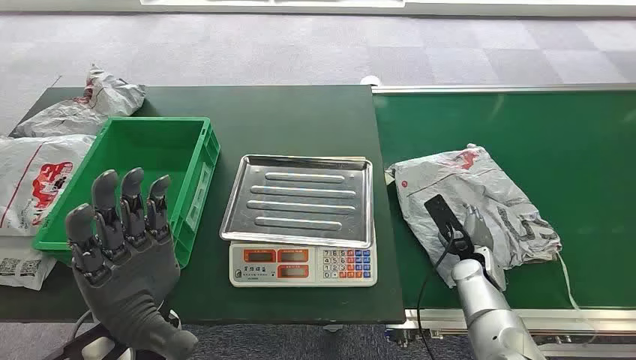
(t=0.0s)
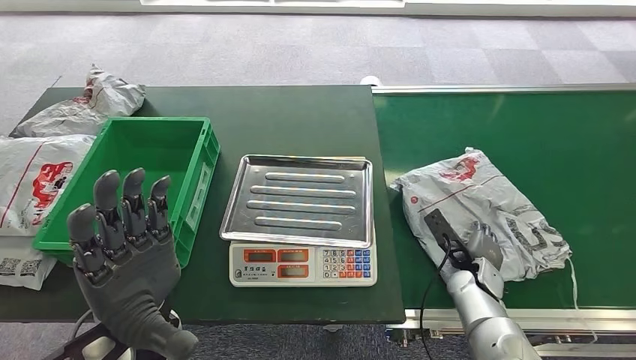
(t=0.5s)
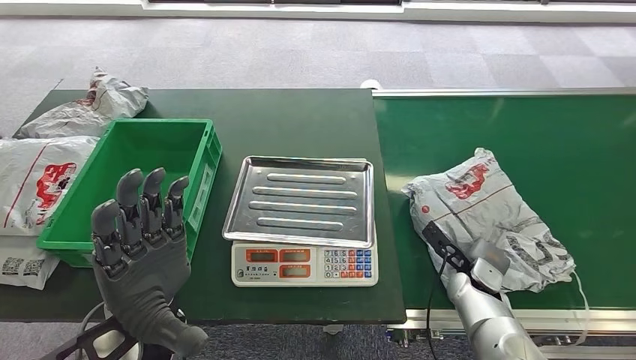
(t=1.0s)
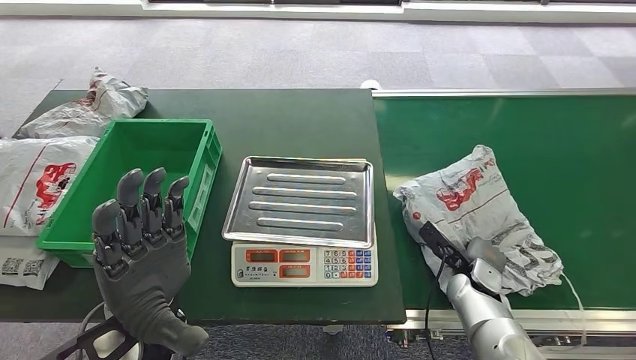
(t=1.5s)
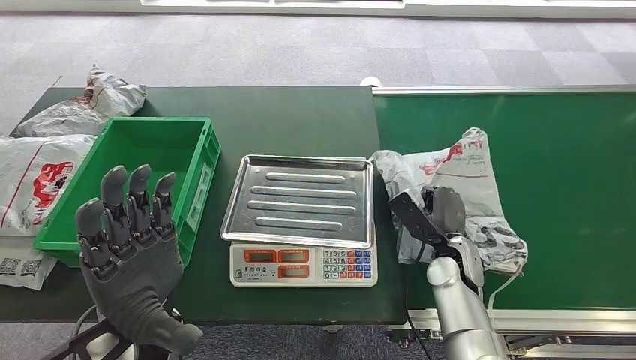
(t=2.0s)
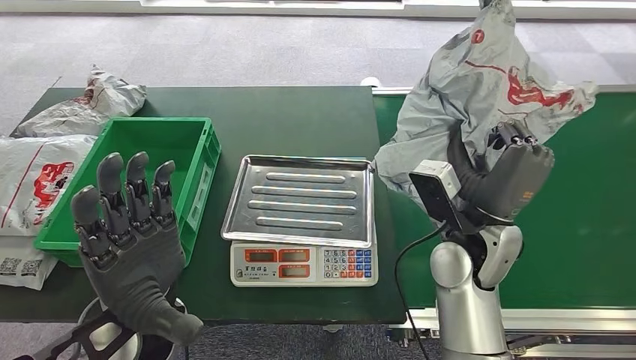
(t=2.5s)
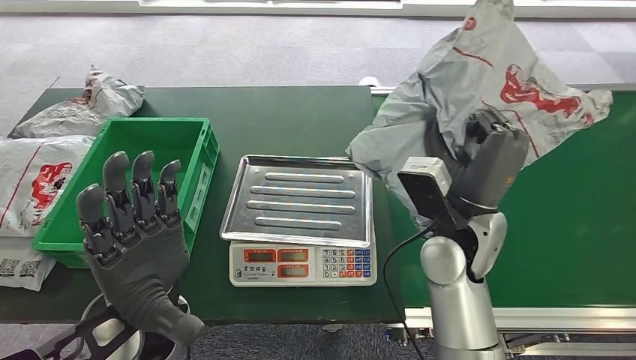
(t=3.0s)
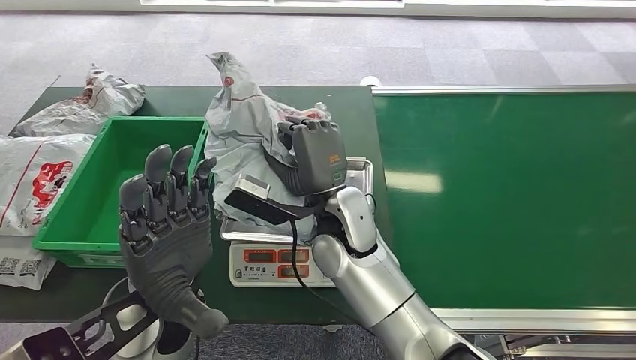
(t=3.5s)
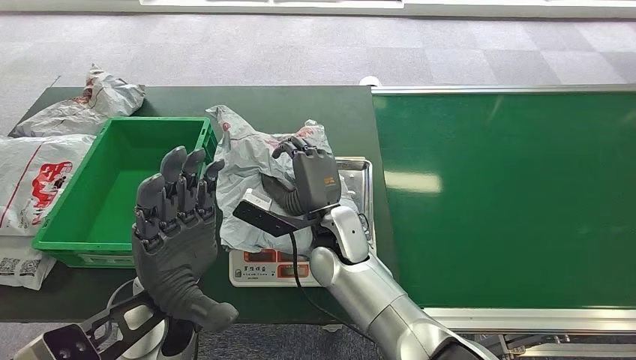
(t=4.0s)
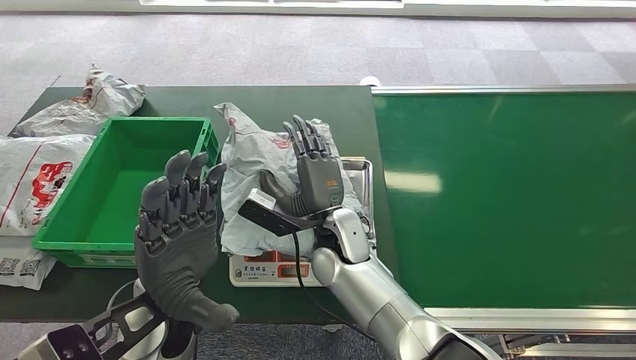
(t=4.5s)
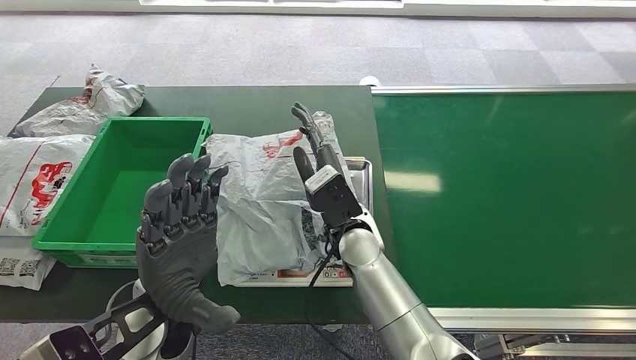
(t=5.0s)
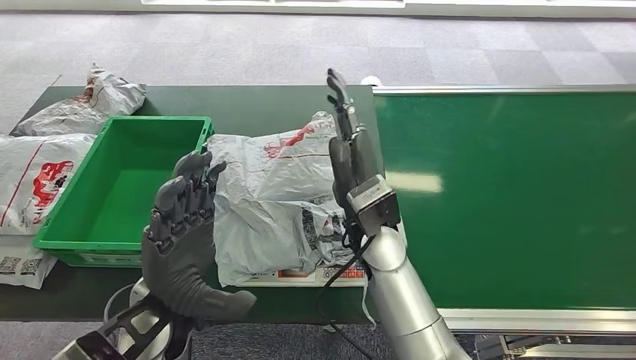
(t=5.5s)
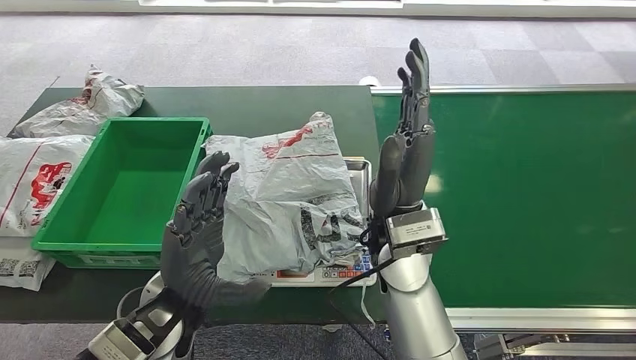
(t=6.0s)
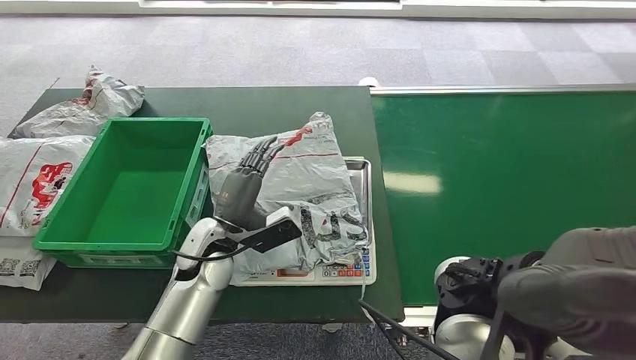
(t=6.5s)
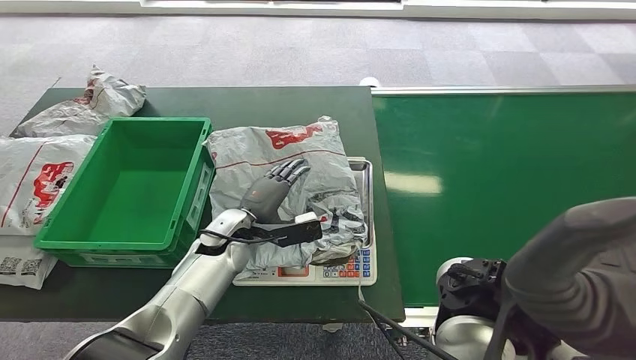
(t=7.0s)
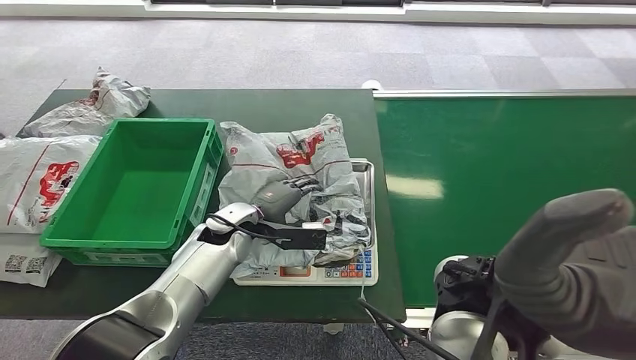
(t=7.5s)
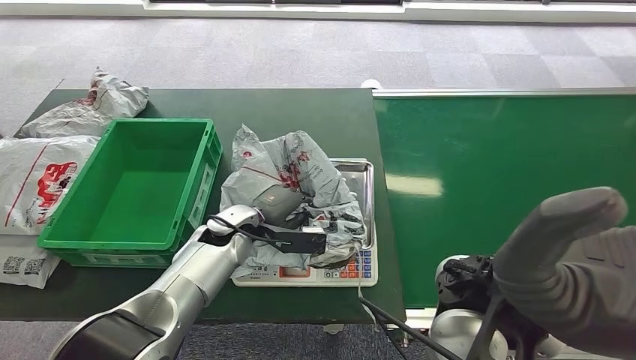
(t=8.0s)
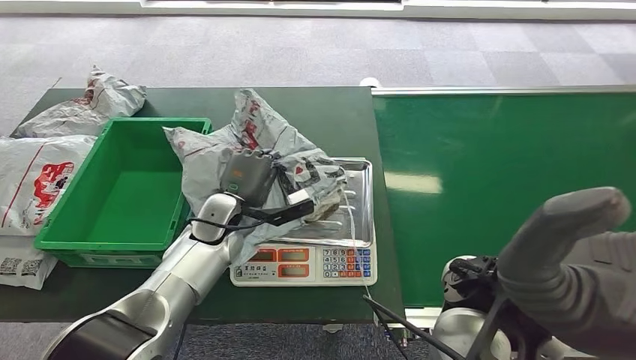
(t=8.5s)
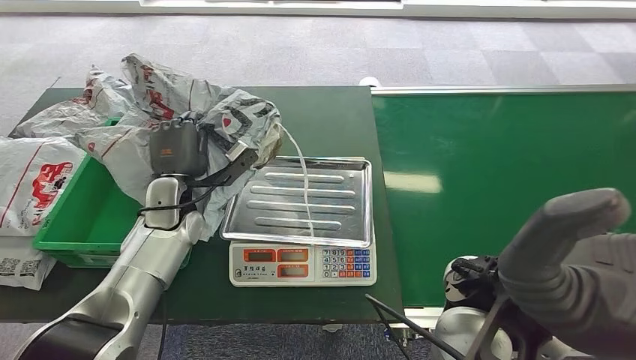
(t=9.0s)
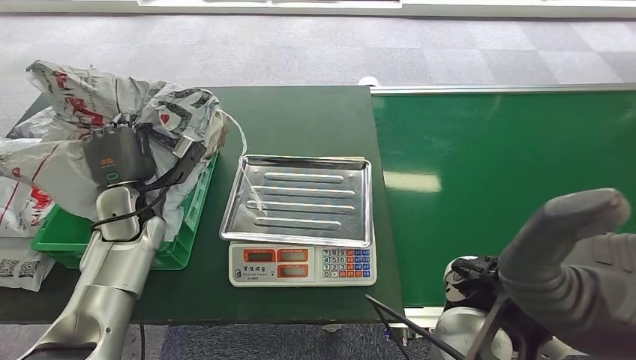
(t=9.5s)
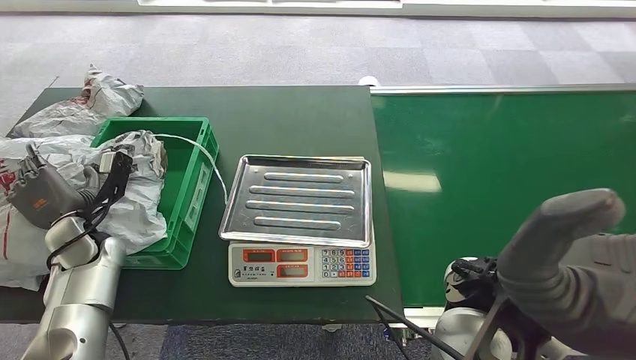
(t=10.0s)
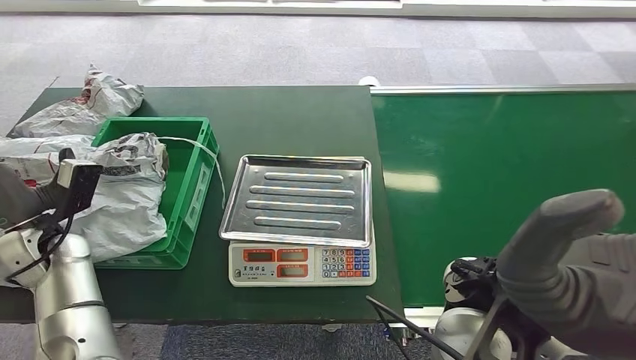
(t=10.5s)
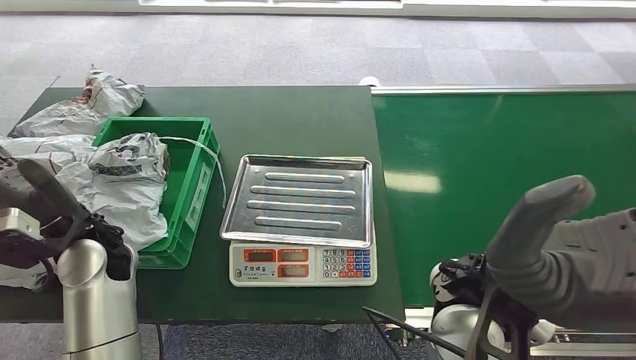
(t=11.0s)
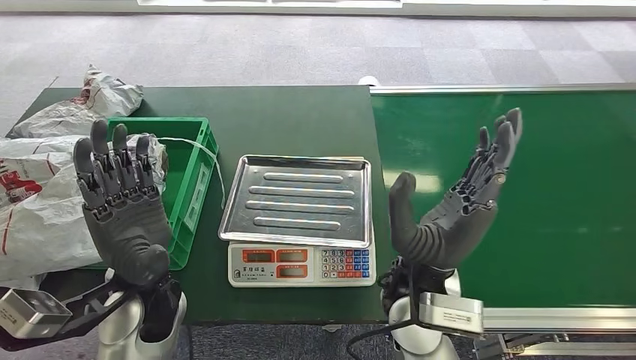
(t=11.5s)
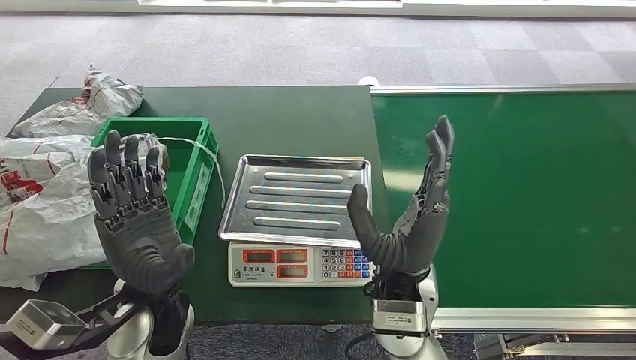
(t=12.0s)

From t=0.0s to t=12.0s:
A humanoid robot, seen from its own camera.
Step, from t=0.0s to t=3.0s: Pick up the package from the conveyor belt.
Step, from t=3.5s to t=5.5s: Place the package onto the inbound machine.
Step, from t=6.0s to t=9.0s: Pick up the package from the inbound machine.
Step, from t=10.0s to t=12.0s: Place the package into the parcel locker.
From t=4.0s to t=6.0s: The right hand goes approximately 10 cm upward and to the right.
